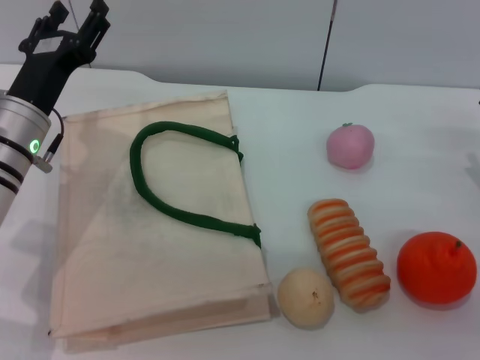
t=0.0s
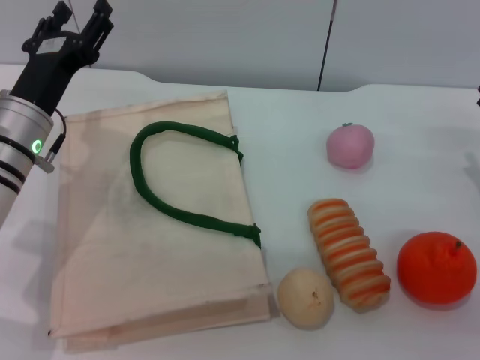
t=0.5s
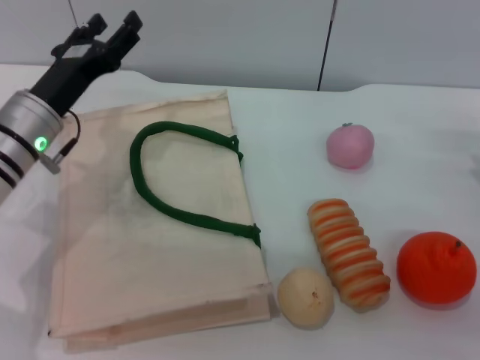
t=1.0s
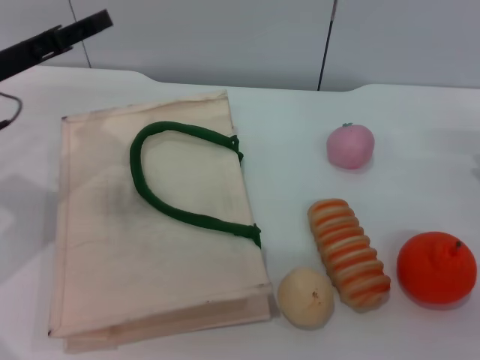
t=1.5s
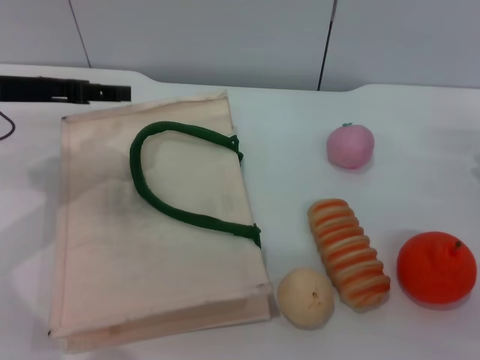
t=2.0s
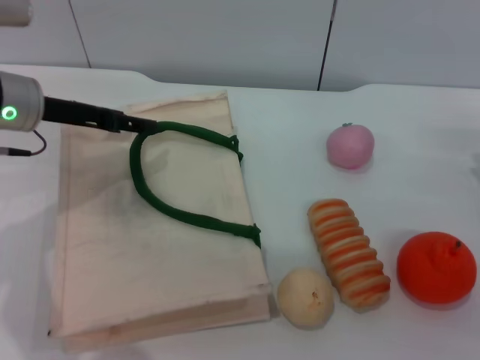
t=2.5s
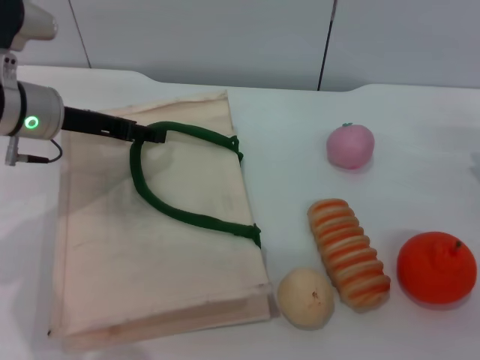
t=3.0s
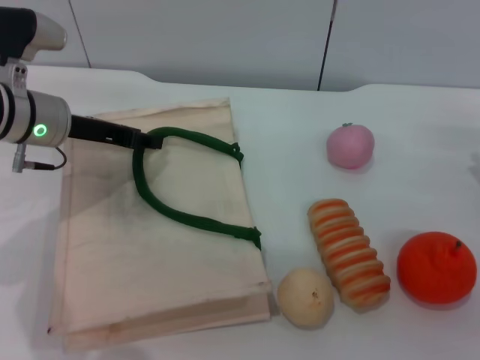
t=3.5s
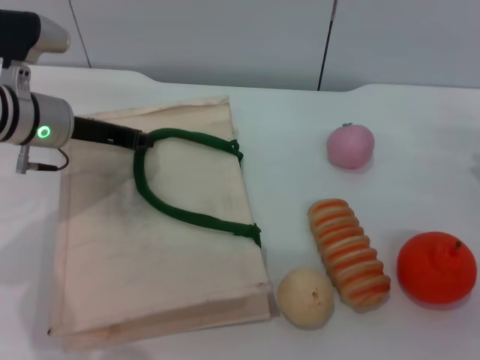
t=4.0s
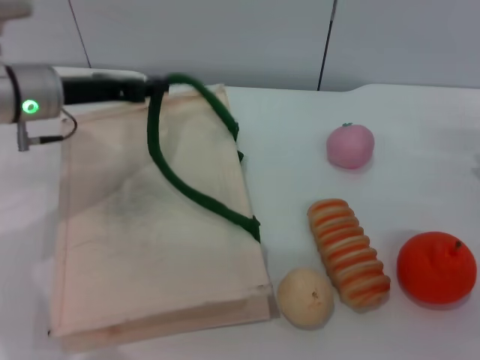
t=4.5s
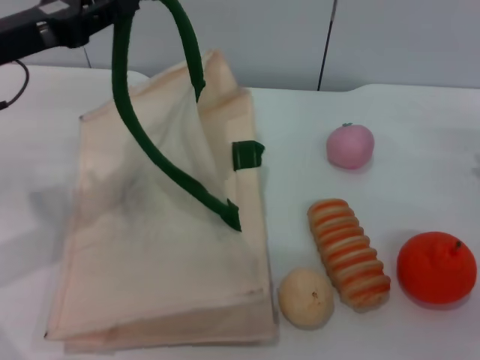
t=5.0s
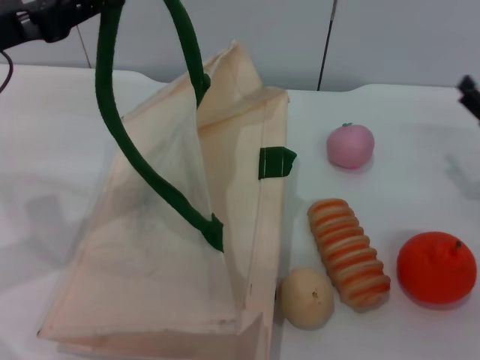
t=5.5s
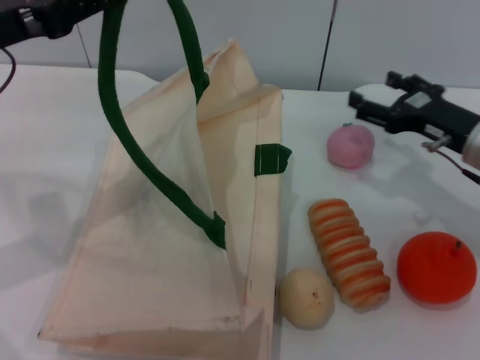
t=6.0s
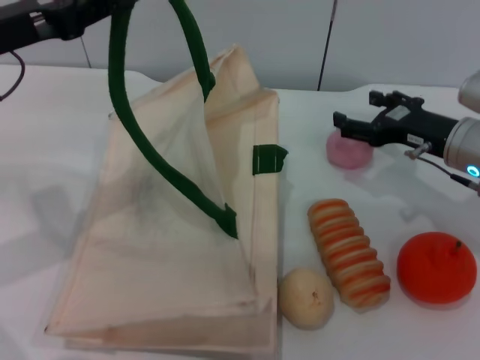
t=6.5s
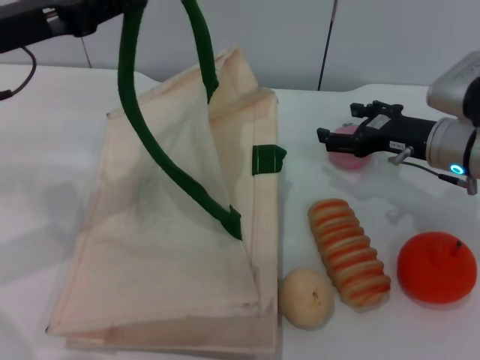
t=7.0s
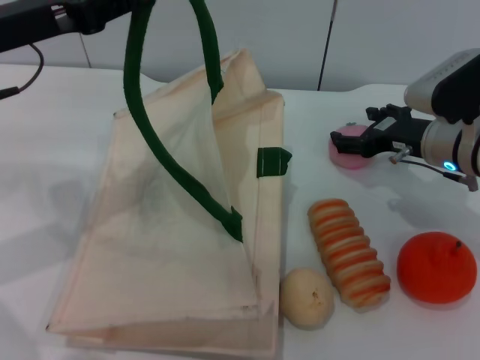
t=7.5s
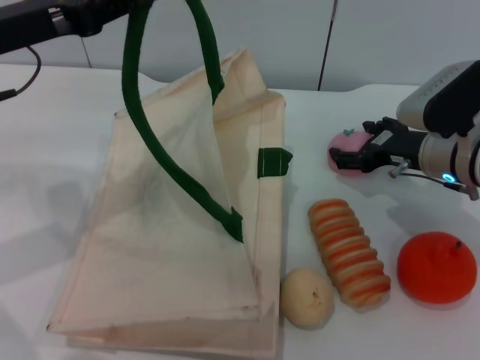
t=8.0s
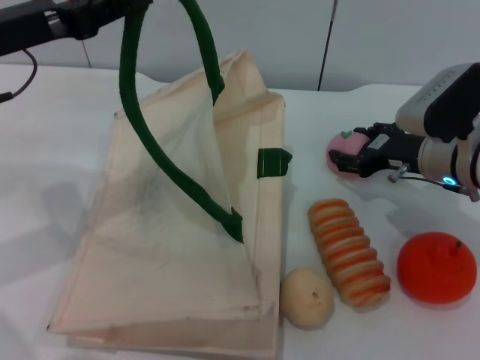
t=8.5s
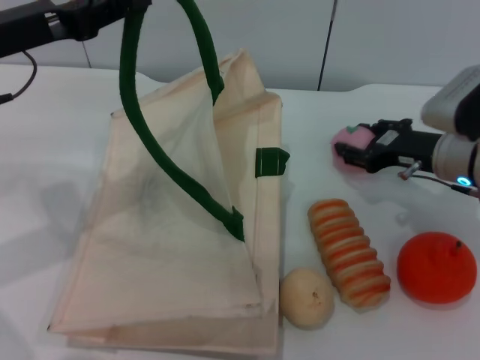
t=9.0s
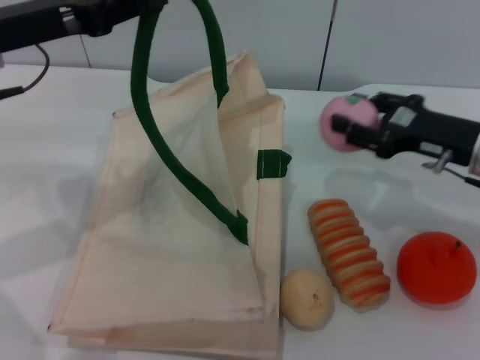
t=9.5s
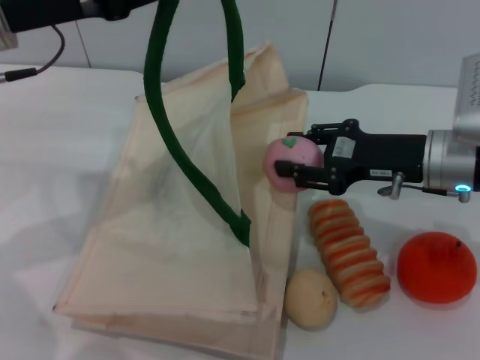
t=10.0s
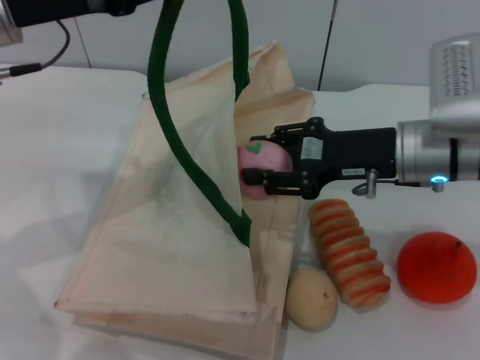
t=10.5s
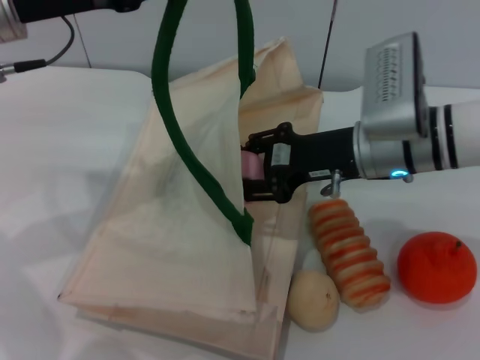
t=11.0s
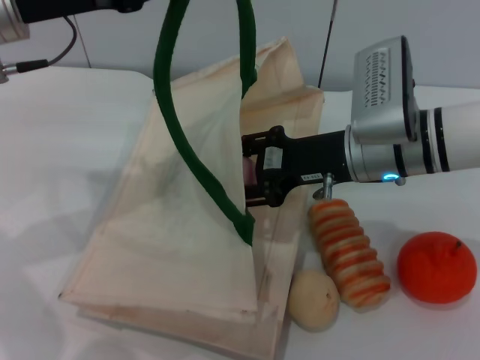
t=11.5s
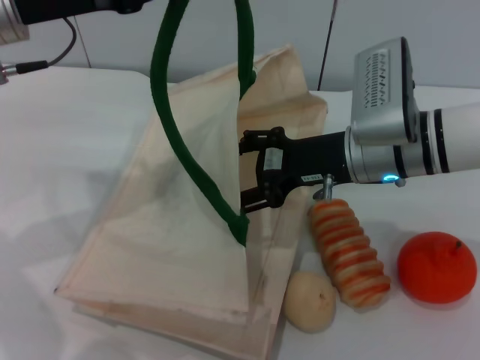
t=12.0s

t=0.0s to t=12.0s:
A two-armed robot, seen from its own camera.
Task of the whole recording: pick up the peach from the table and place it in the white handbag.
Step, t=0.0s to t=5.0s: Lift the woven bag with the left gripper to open it.
Step, t=5.5s to t=9.0s: Pick up the peach with the right gripper.
t=0.0s to t=2.0s: The left gripper moves upward and to the left, roughly 10 cm.
t=2.0s to t=4.0s: The left gripper heads downward and to the right, covering approximately 10 cm, and closes up.
t=4.0s to t=6.0s: The left gripper shifts about 10 cm upward and backward. Meanwhile the right gripper is displaced to the left by some 10 cm.
t=8.0s to t=10.0s: The right gripper ends up roughly 5 cm from where it was, and closes.
t=10.0s to t=12.0s: The right gripper moves to the left, some 5 cm, and opens.

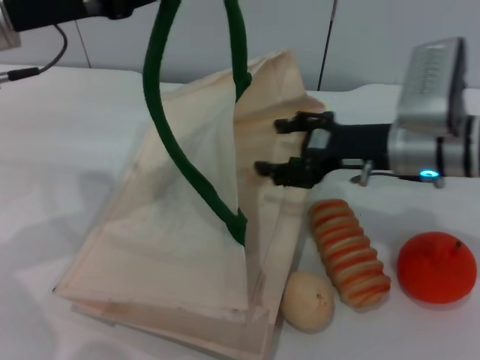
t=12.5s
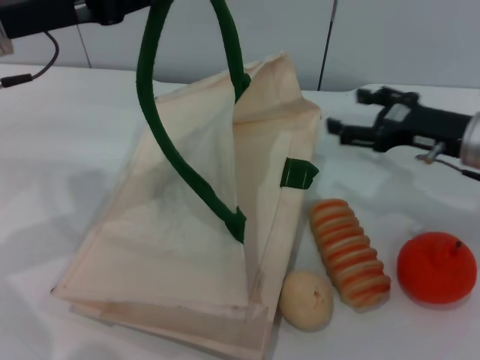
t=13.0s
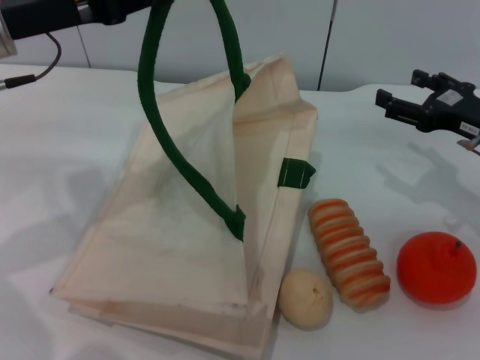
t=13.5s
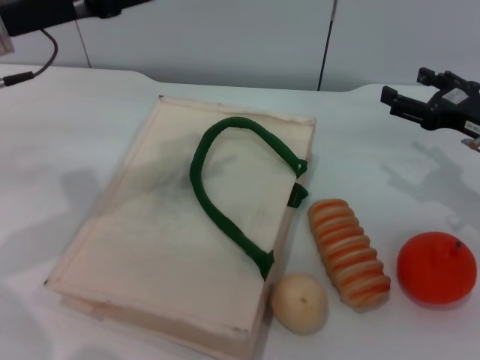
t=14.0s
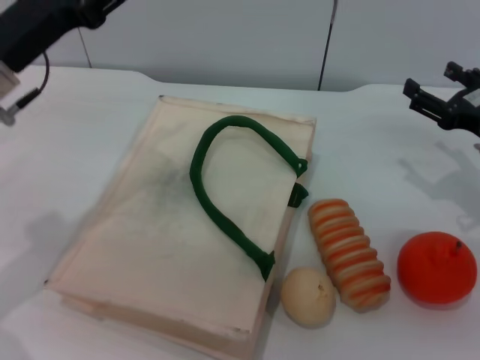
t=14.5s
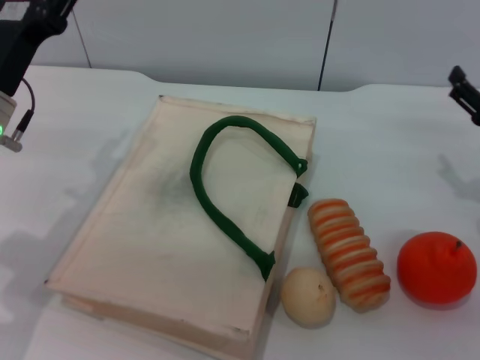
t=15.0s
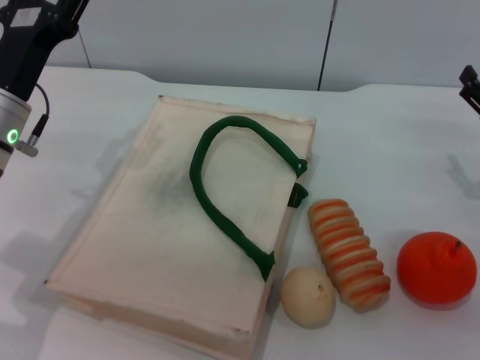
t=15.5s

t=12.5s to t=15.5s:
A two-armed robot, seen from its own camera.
Task of the whole recording: pick up the peach from the table and place it in the white handbag.
t=12.5s to t=14.0s: The right gripper shifts about 10 cm to the right.
t=14.0s to t=15.5s: The right gripper ends up about 5 cm from where it was; the left gripper heads downward, covering approximately 10 cm, and opens up.

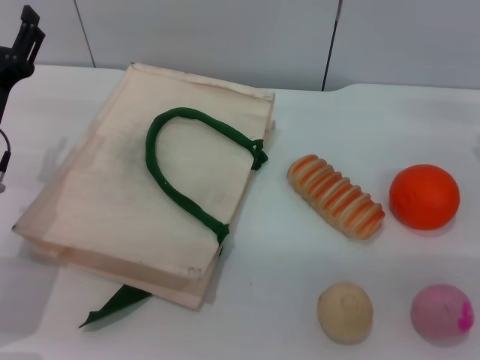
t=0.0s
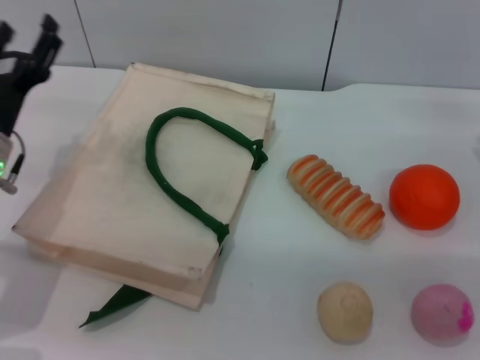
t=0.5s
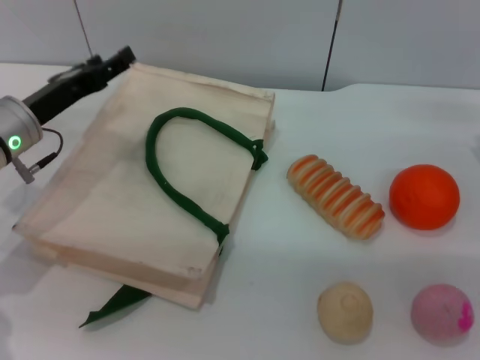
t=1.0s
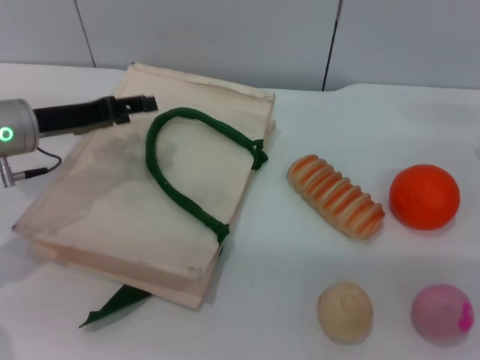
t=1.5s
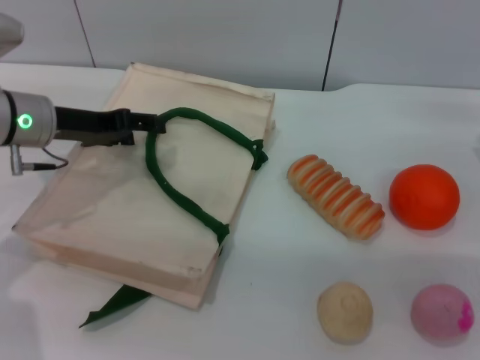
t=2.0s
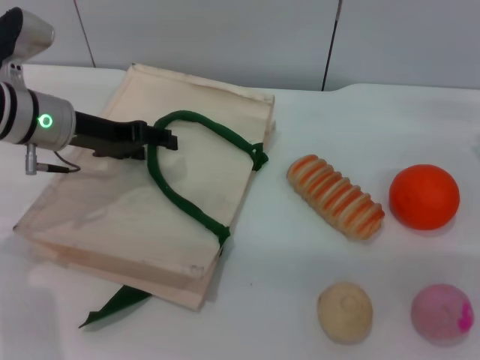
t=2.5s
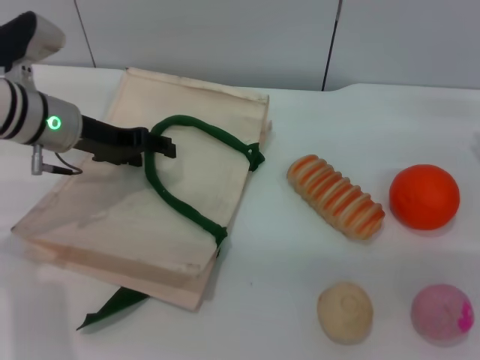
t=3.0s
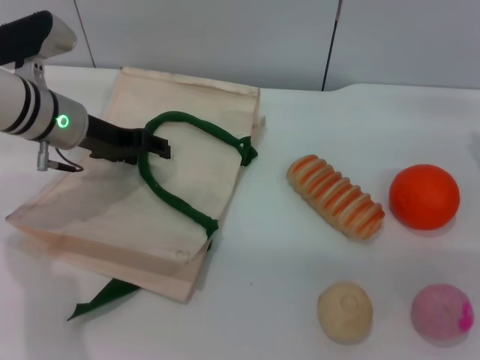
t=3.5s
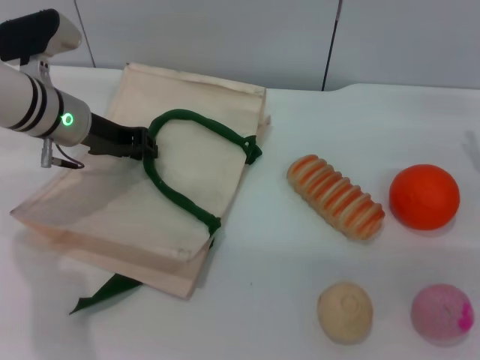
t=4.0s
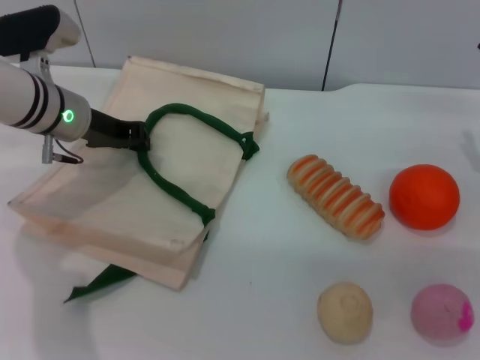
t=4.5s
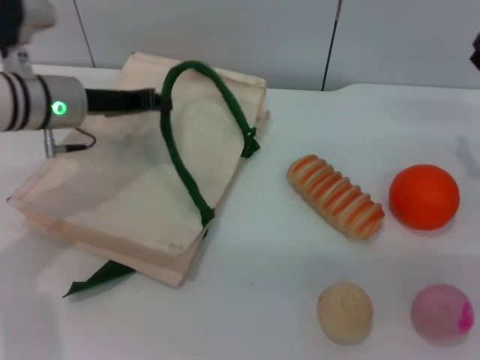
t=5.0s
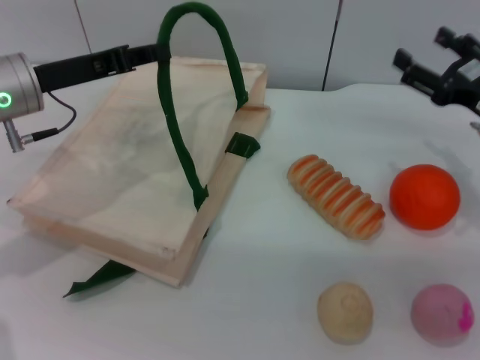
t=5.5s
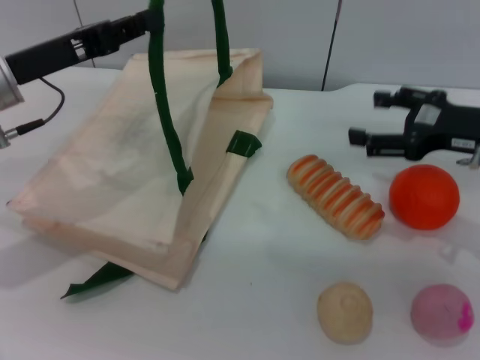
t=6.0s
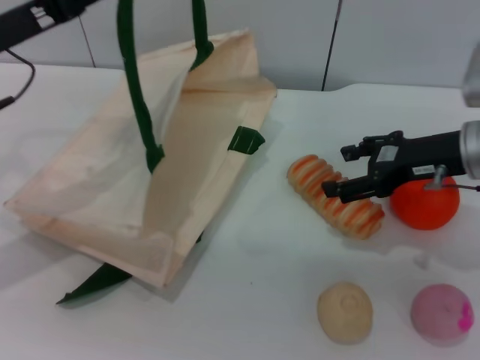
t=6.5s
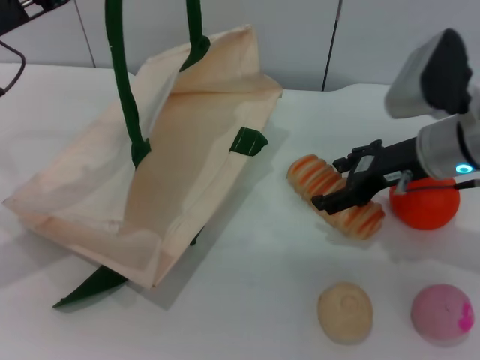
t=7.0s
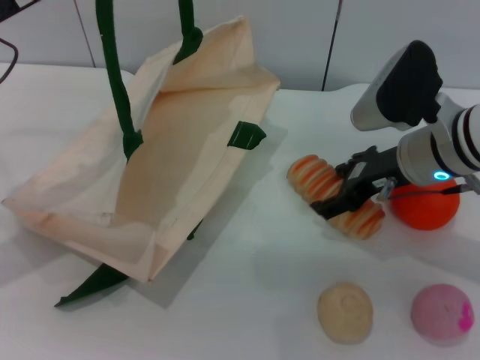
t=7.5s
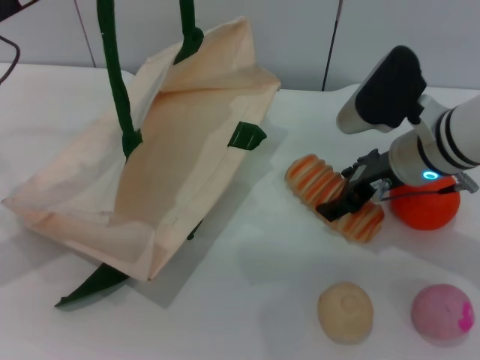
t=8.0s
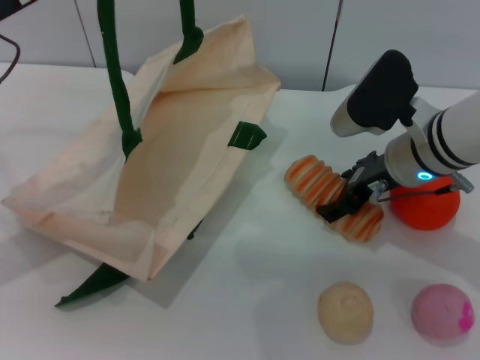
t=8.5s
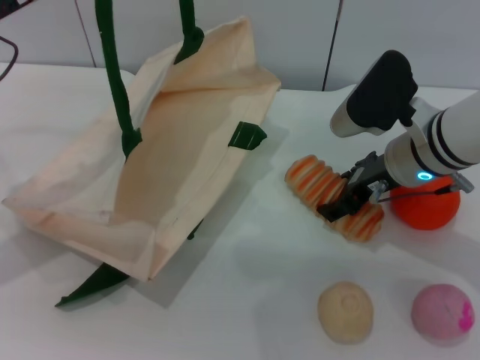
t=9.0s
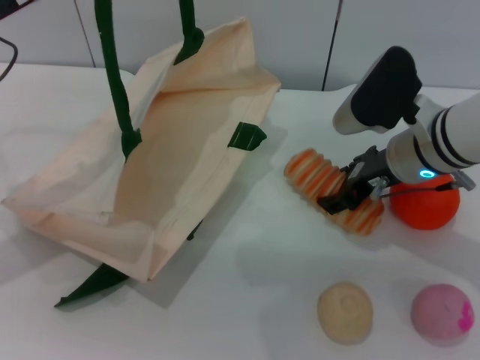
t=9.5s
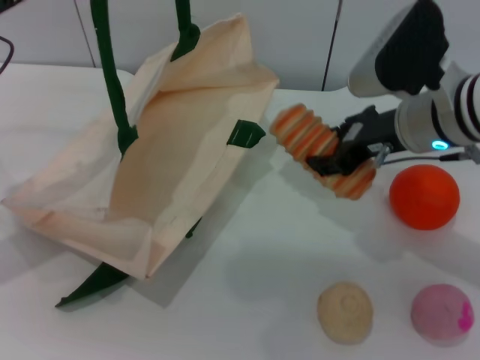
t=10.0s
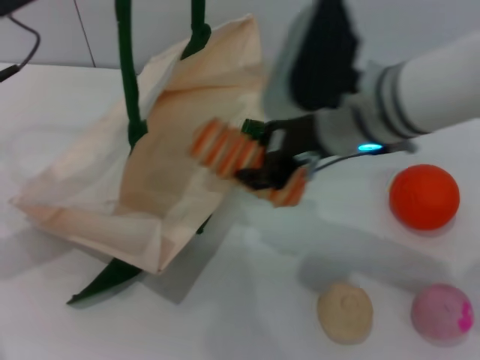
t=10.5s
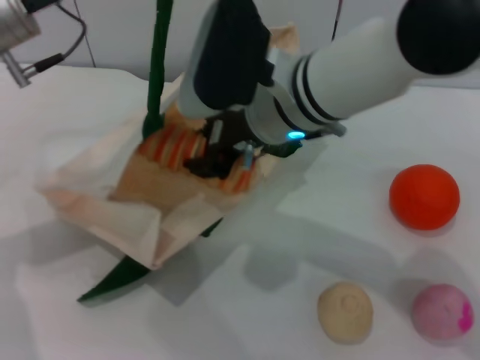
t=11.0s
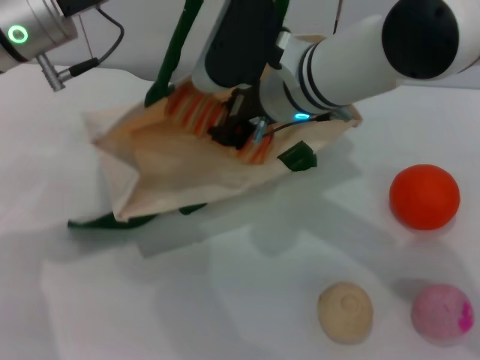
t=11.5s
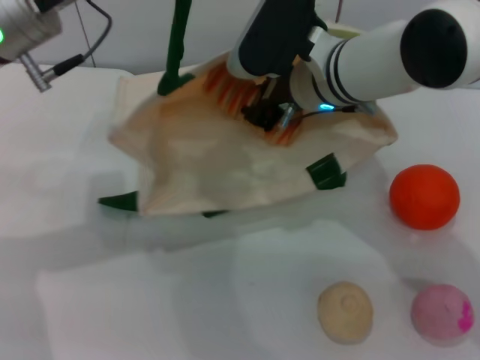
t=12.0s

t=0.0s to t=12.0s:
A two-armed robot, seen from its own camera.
Task of the whole recording: pick up the bread and egg yolk pastry from the table and place it in the white handbag.
Step, t=0.0s to t=5.0s: Lift the woven bag with the left gripper to open it.
Step, t=5.5s to t=9.5s: Pick up the bread with the right gripper.
t=0.0s to t=2.0s: The left gripper heads forward, covering about 5 cm.
t=2.0s to t=4.0s: There are only small adjustments of the grippers.
t=4.0s to t=6.0s: The left gripper moves backward and upward, approximately 10 cm, and closes, while the right gripper travels upward by some 5 cm.
t=6.0s to t=8.0s: The right gripper travels to the left by approximately 10 cm.
t=8.0s to t=10.0s: The right gripper closes up.
t=10.0s to t=12.0s: The right gripper moves to the left, about 10 cm, and closes its fingers. Meanwhile the left gripper heads to the right, covering about 10 cm.
